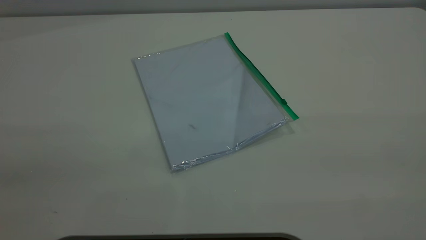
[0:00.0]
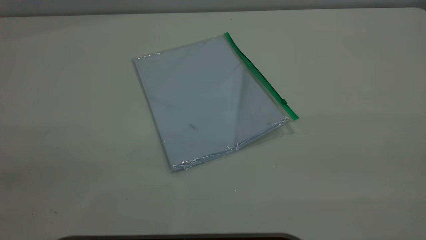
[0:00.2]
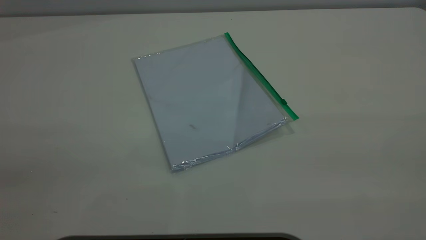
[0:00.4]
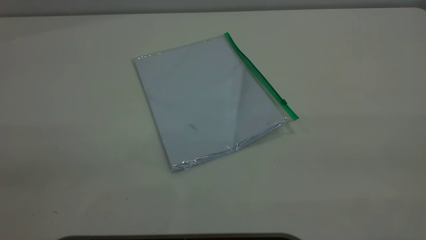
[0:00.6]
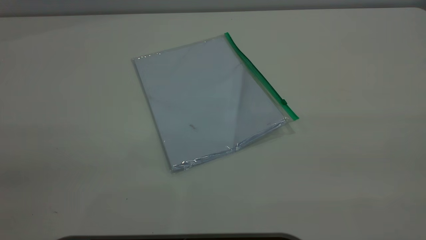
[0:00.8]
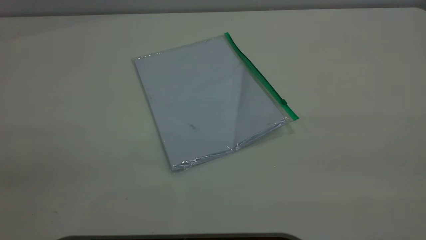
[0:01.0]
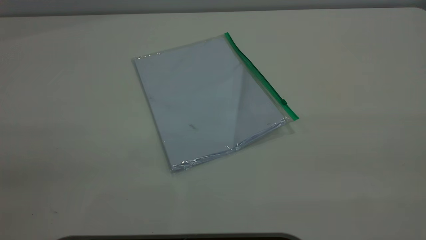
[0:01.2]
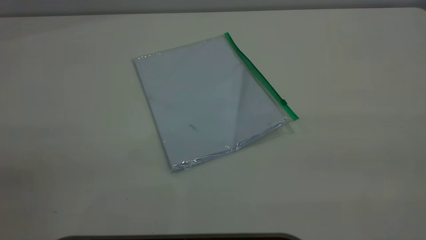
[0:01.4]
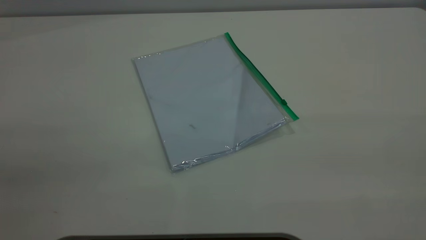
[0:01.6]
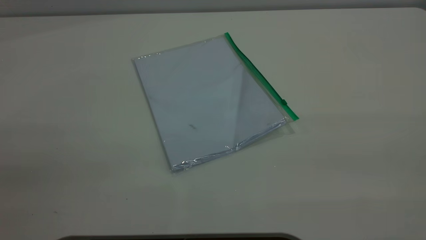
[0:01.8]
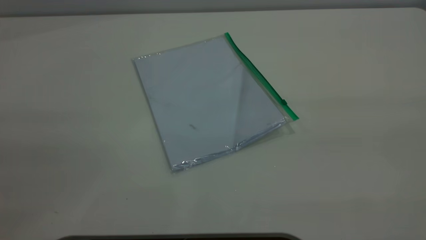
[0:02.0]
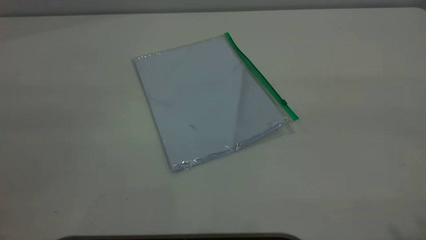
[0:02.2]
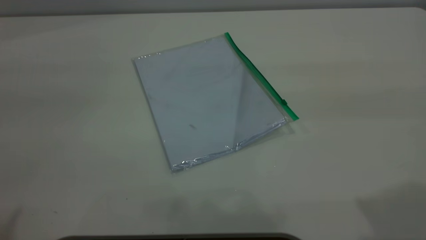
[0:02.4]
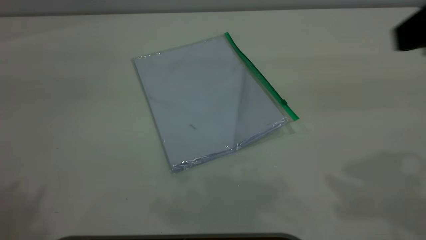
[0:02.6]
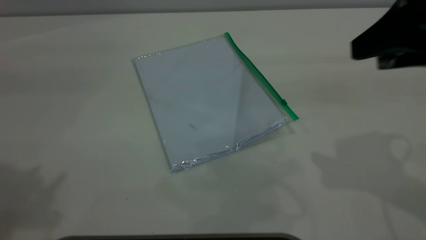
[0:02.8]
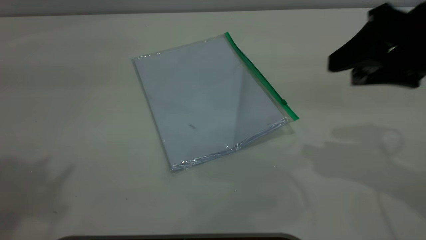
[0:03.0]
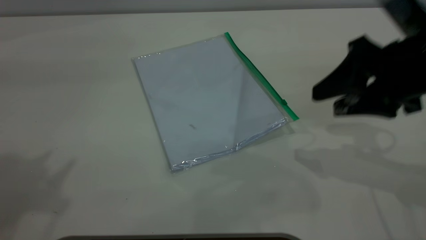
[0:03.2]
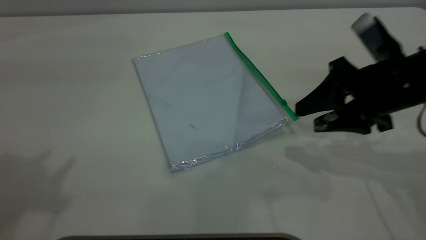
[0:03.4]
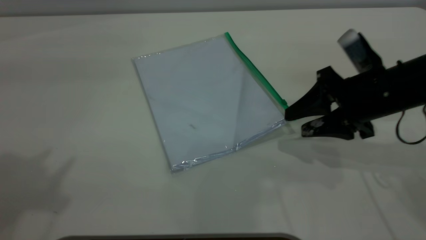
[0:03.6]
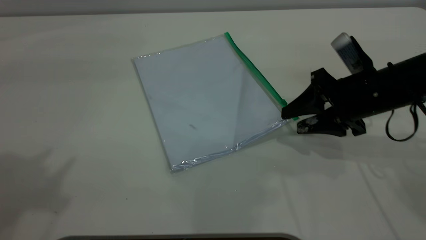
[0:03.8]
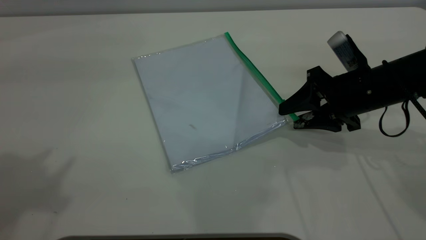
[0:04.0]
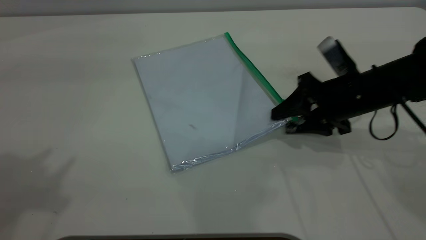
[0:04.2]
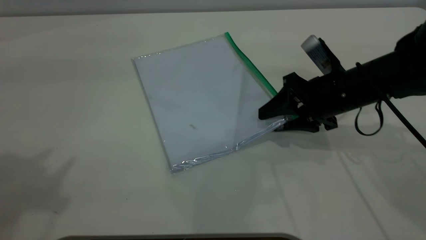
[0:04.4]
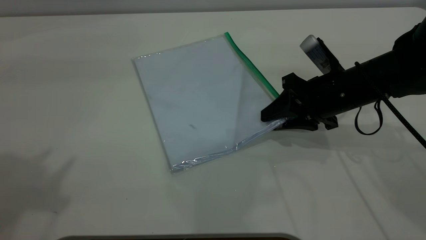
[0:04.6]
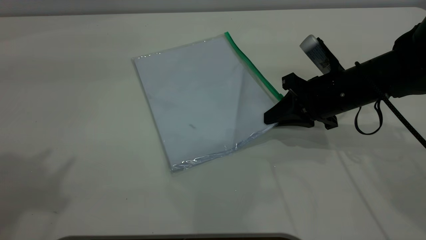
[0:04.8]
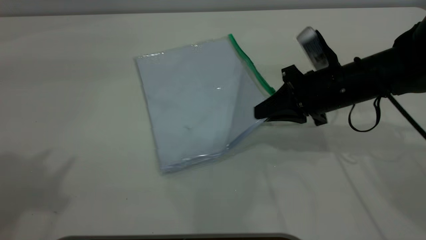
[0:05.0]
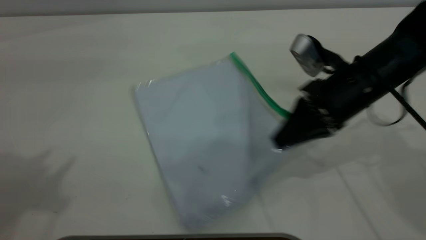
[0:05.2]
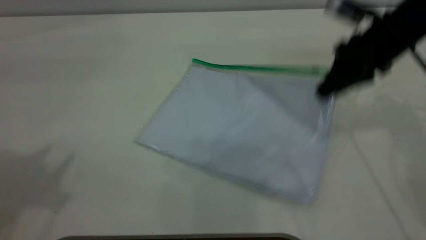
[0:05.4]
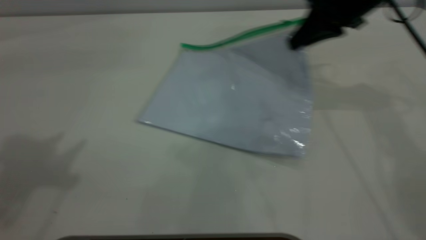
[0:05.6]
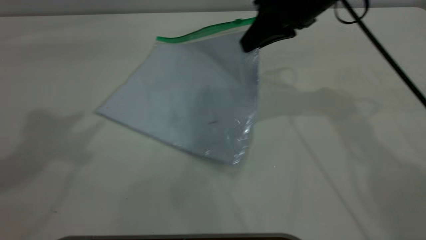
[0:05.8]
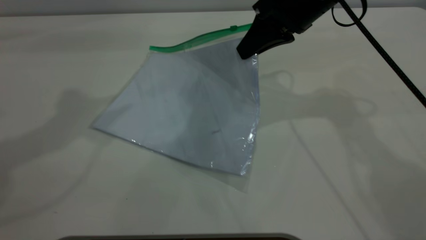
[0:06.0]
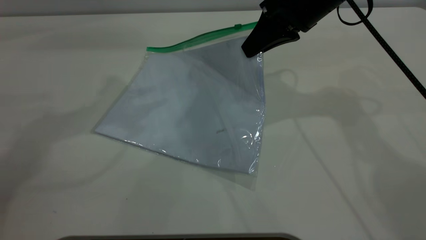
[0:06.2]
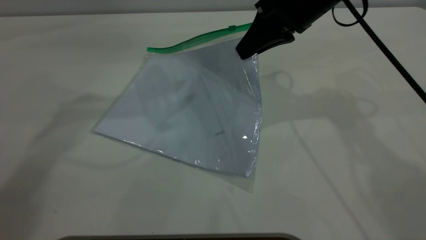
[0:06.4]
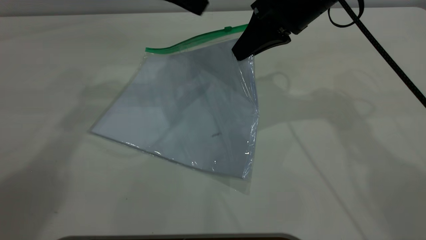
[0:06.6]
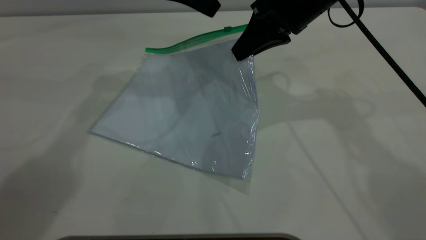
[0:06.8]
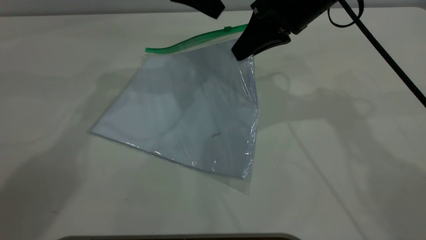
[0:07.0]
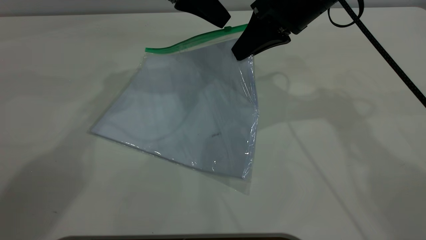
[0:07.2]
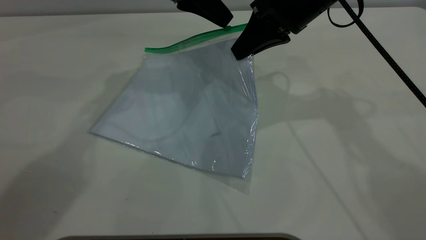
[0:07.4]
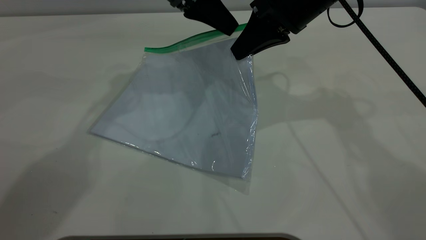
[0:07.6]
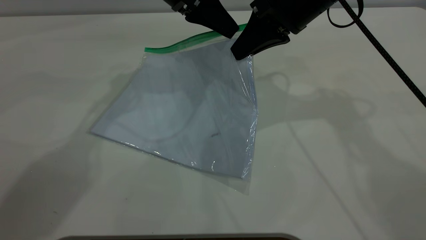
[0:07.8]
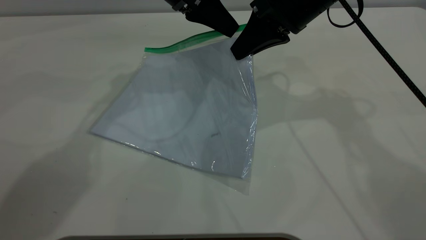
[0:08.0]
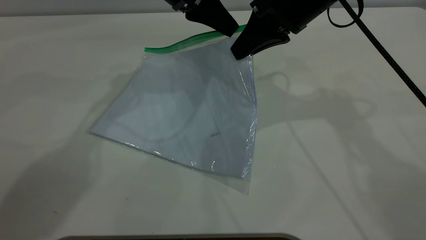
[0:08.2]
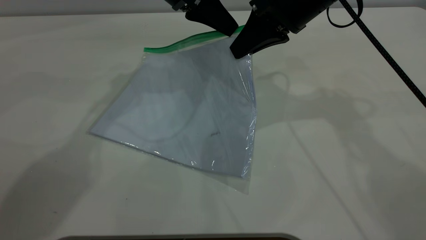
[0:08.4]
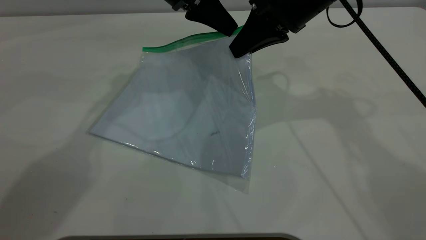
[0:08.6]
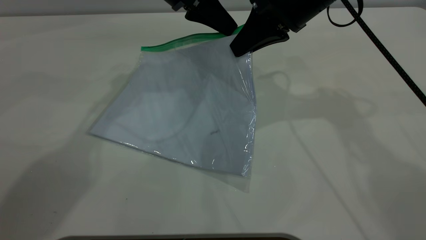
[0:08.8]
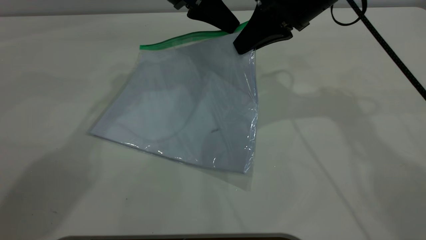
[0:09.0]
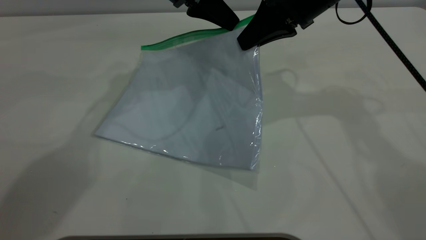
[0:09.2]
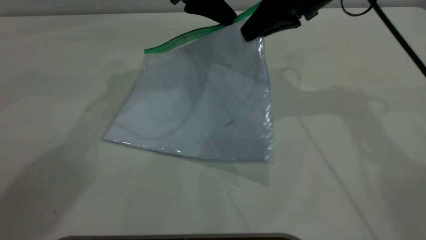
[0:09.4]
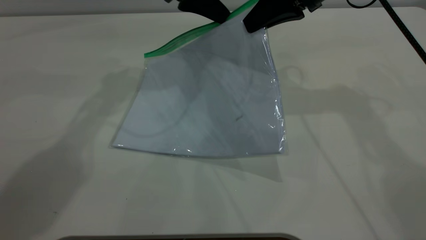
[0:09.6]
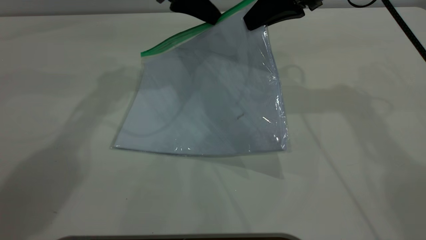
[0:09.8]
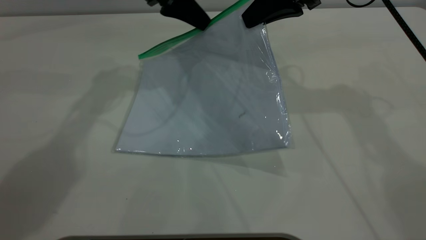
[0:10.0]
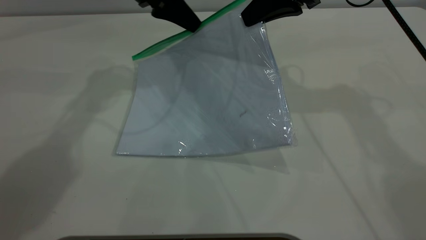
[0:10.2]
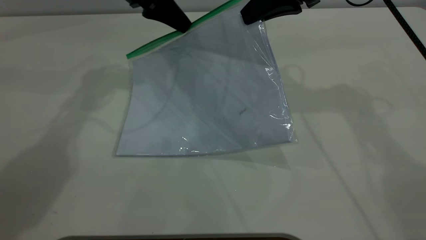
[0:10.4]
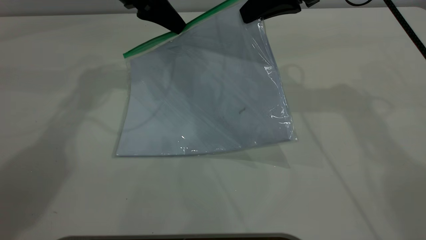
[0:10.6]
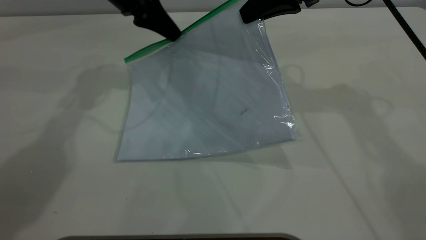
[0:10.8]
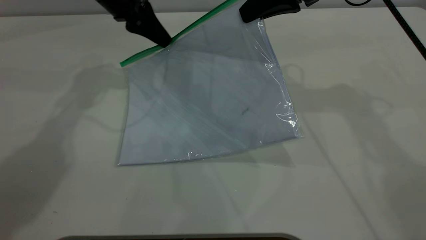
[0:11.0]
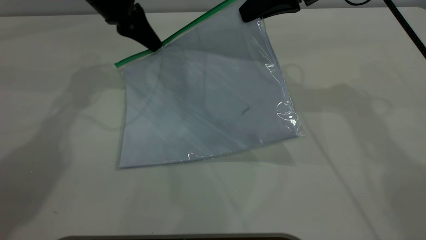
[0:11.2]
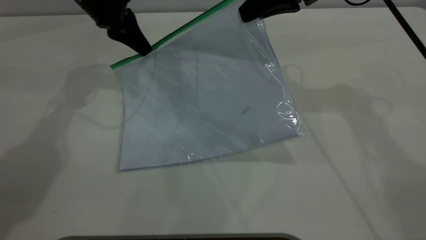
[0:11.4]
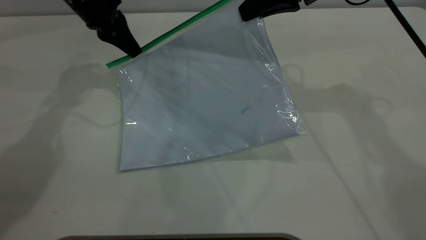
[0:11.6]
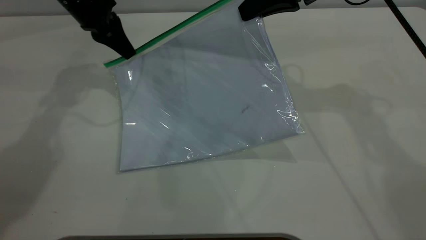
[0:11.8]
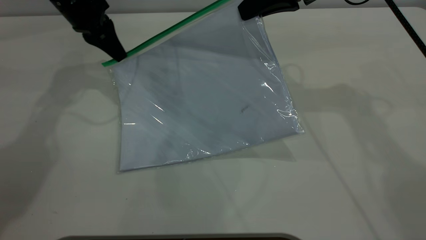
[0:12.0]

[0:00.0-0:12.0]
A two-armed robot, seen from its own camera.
Step, 0:00.0 to 0:04.8: Pick up the transparent plastic bag with the right gripper.
0:00.0 to 0:01.6: Neither gripper changes place.
0:01.6 to 0:03.0: The right gripper heads forward and downward, covering about 30 cm.
0:03.0 to 0:04.4: The right gripper goes approximately 15 cm downward and forward.
0:04.4 to 0:06.0: The right gripper moves upward, forward and to the left, some 15 cm, and closes its fingers. The left gripper is displaced forward by about 15 cm.
0:06.0 to 0:07.6: The left gripper moves to the right, downward and forward, some 25 cm.
0:07.6 to 0:09.0: The left gripper closes up.
0:09.0 to 0:10.4: The left gripper goes approximately 5 cm to the left.
0:10.4 to 0:12.0: The left gripper is displaced to the left by some 10 cm.

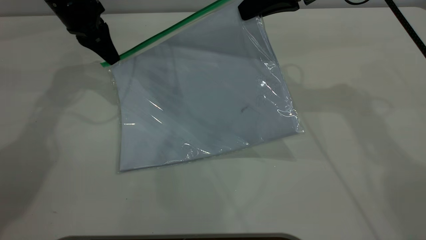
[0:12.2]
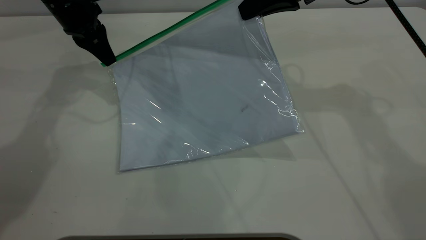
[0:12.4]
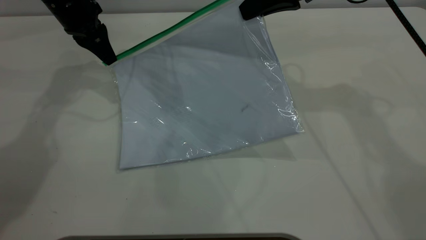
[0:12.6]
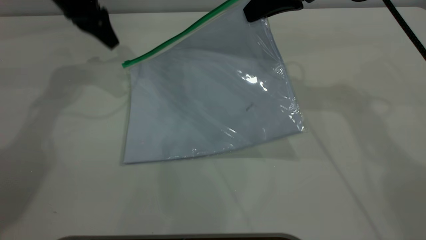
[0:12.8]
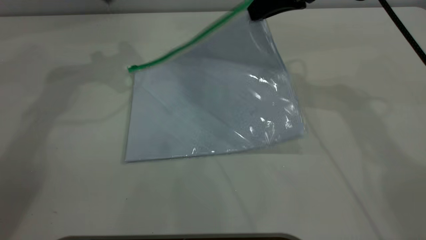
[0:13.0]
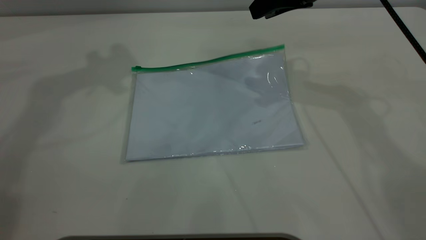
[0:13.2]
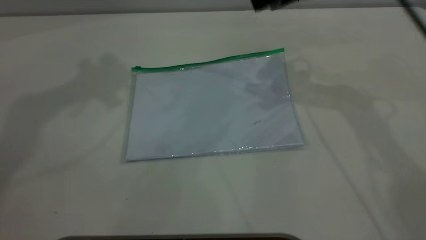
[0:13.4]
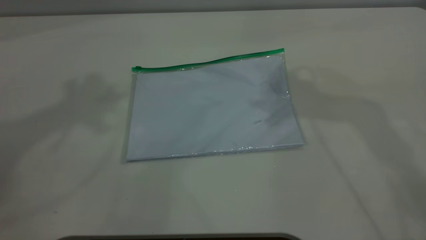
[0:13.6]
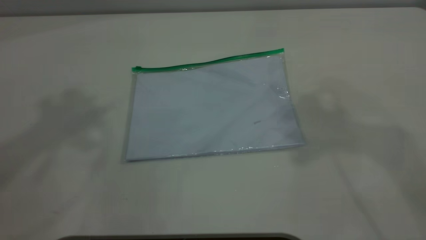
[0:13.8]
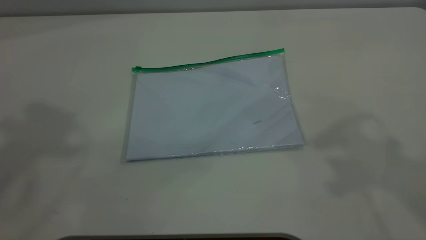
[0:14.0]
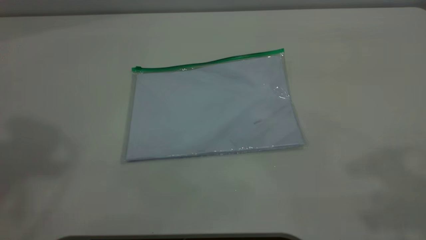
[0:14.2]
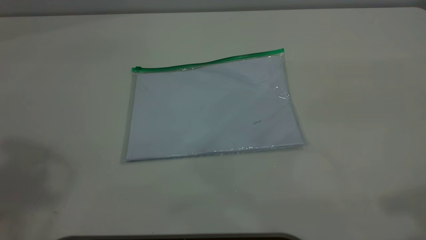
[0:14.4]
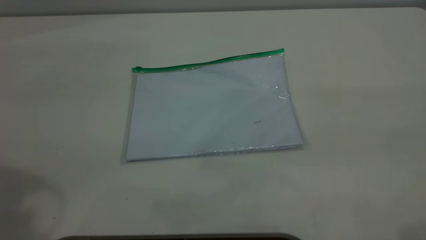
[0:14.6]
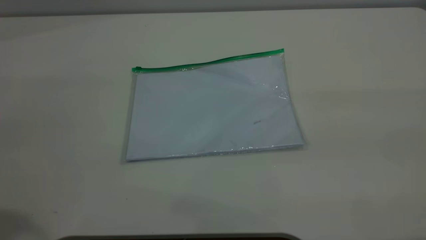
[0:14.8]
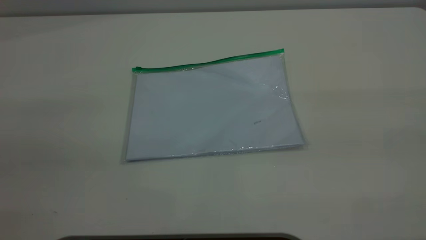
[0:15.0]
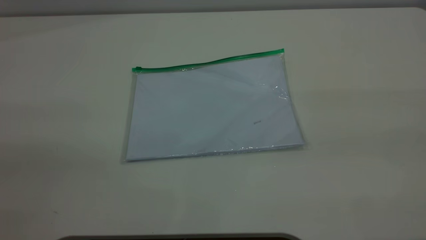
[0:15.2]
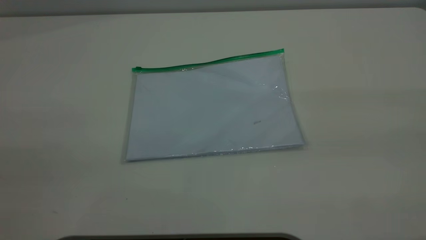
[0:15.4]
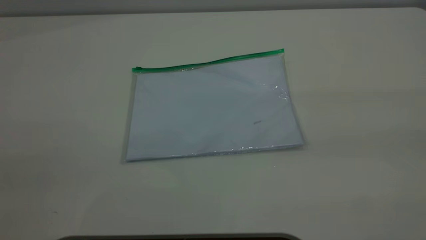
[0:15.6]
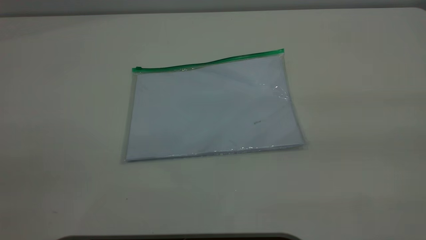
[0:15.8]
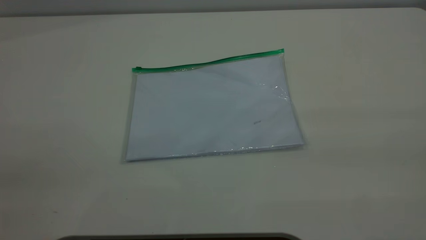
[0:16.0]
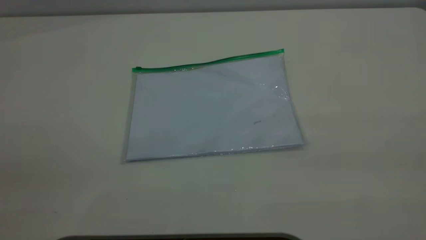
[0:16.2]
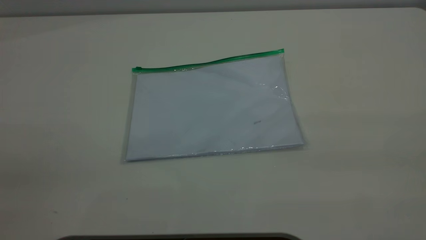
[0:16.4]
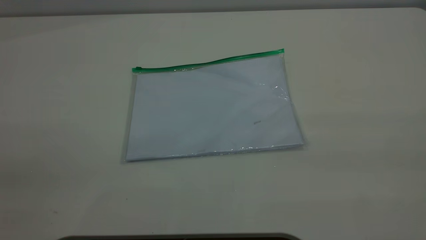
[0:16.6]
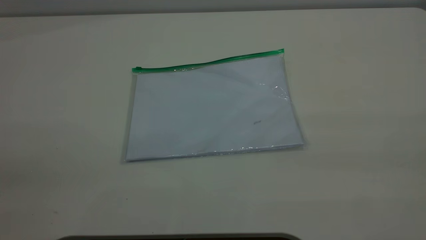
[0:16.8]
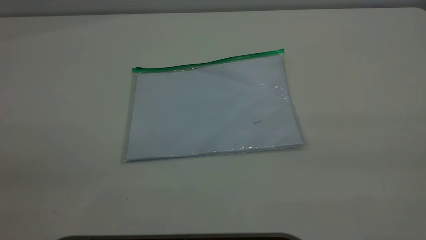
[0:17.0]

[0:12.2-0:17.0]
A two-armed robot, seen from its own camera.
Step, 0:12.8 to 0:13.2: Place the transparent plastic bag.
0:12.2 to 0:13.8: The right gripper shifts roughly 25 cm upward and backward, and opens; the left gripper is displaced upward and backward by approximately 50 cm, and opens its fingers.
